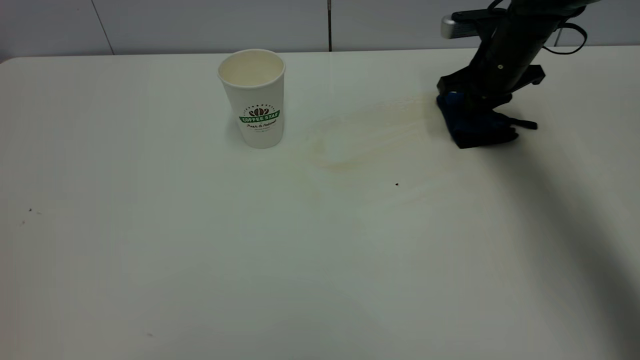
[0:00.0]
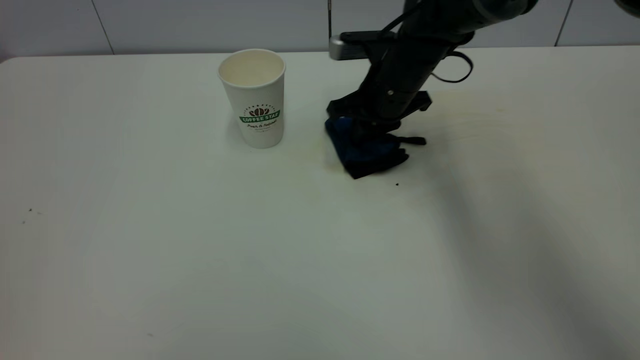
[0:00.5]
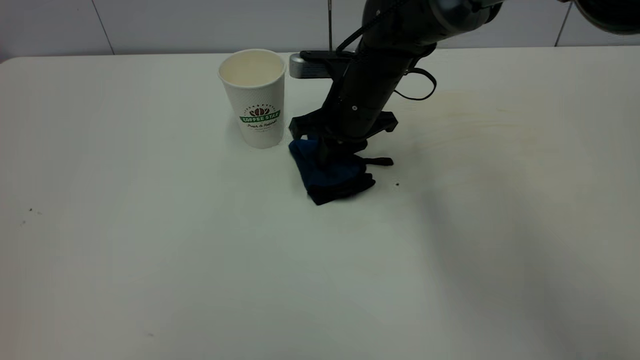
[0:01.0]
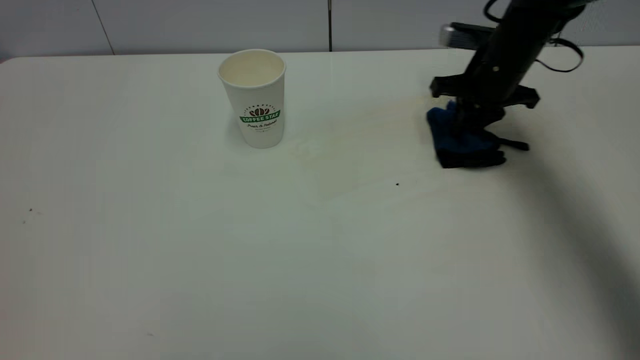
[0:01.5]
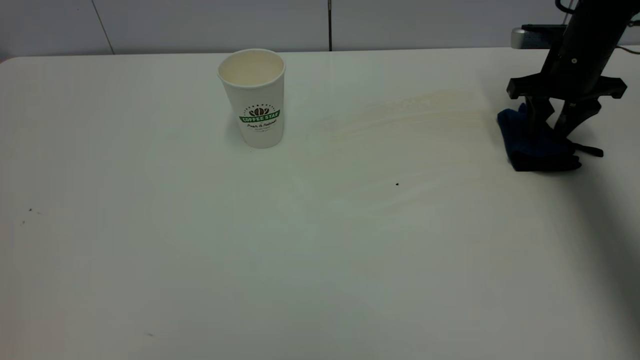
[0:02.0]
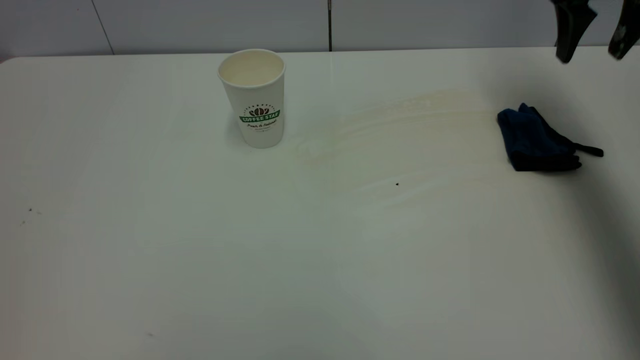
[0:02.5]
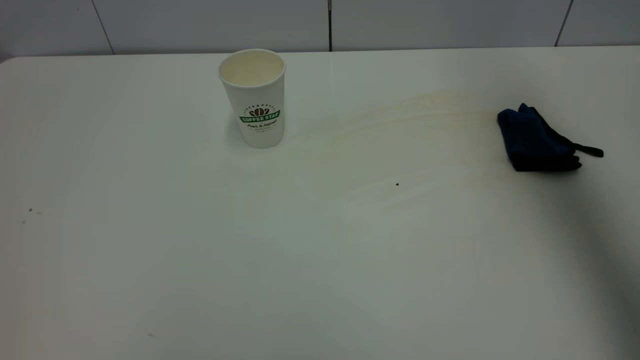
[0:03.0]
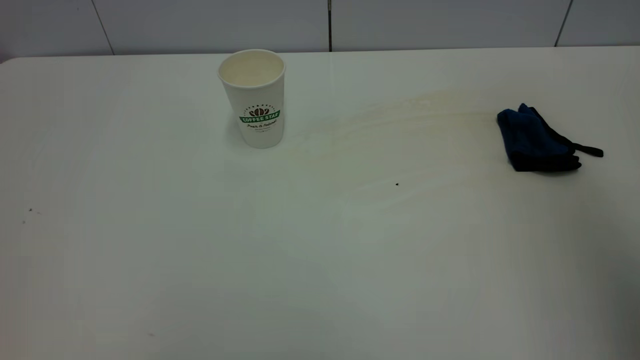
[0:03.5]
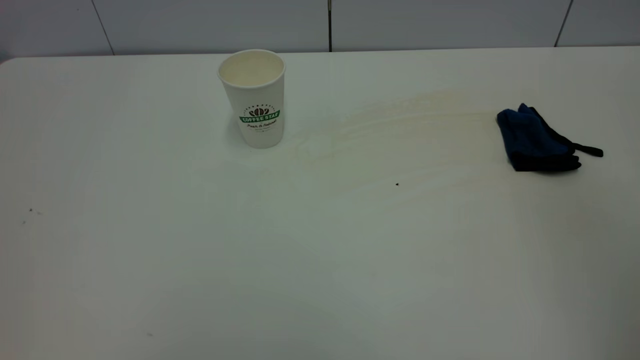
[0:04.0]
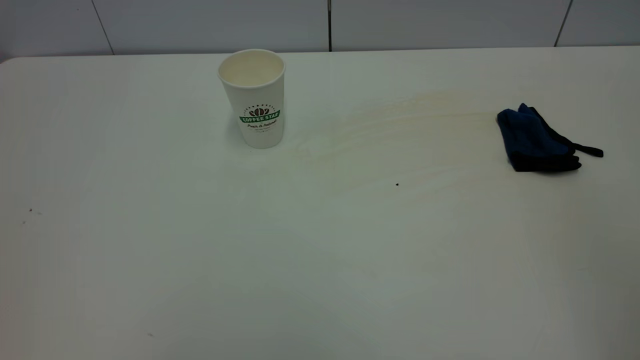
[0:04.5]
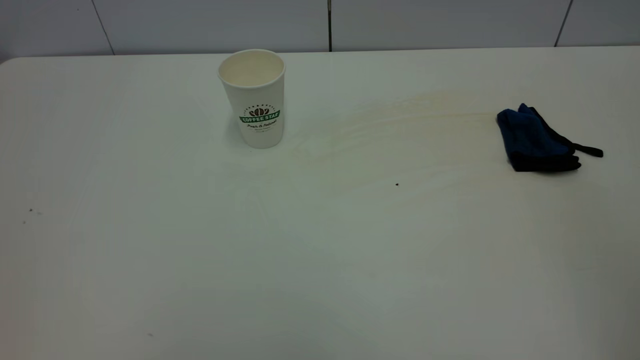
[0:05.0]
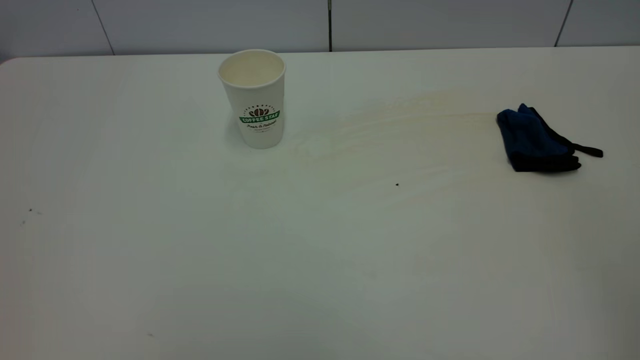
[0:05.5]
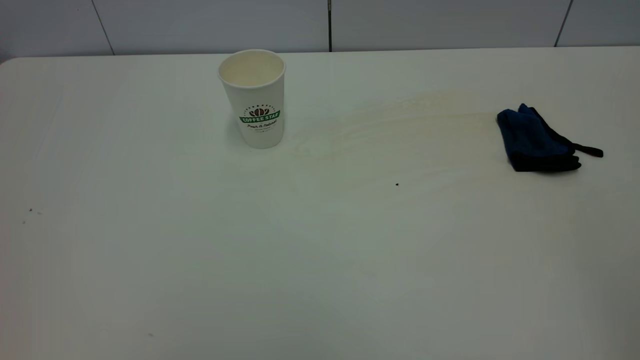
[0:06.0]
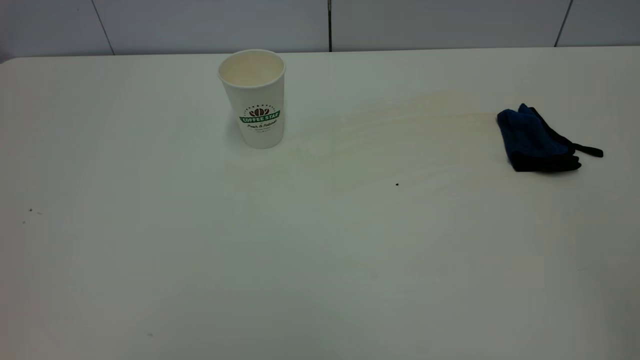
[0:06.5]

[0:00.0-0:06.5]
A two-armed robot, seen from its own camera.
Task of the whole recording: the left gripper pick up the fallen cup and place it upright, the right gripper grasp the blue rag and wipe the tea stain on the table, the right gripper put the blue rag back in its original position.
Step, 0:00.0 to 0:02.0: Wipe the stains off the table with a rag.
0:00.0 to 0:02.0: The right gripper goes about 10 cm to the right, and opens its fingers.
0:02.0 to 0:04.5: The right gripper is displaced backward and upward by roughly 50 cm.
